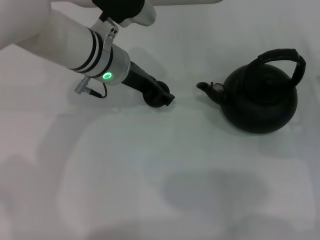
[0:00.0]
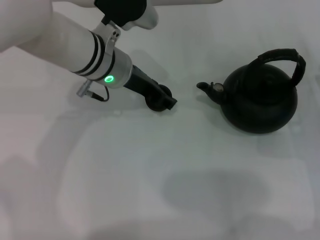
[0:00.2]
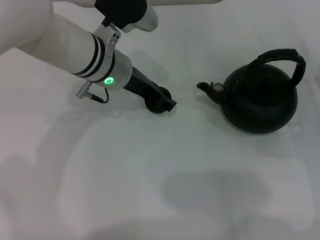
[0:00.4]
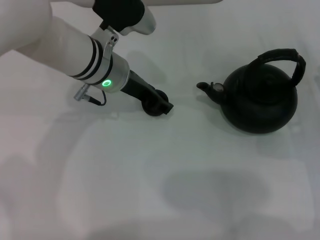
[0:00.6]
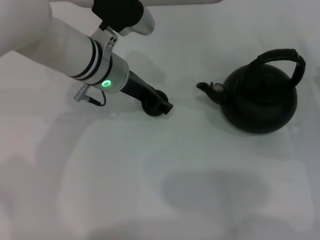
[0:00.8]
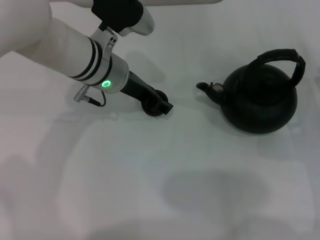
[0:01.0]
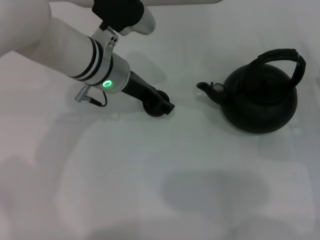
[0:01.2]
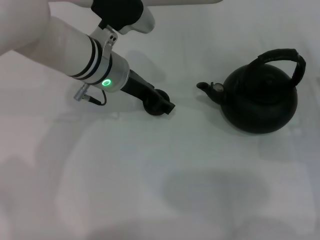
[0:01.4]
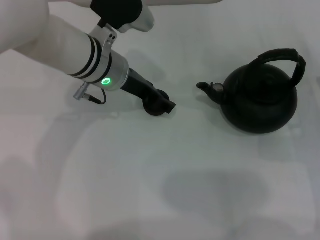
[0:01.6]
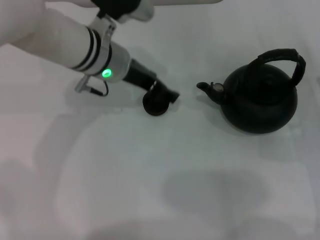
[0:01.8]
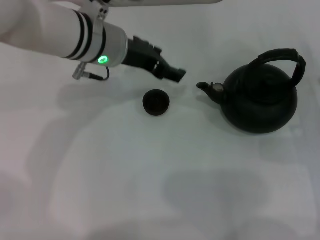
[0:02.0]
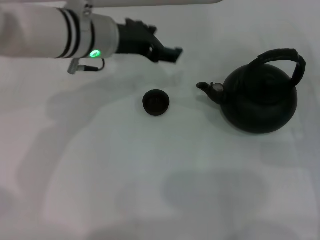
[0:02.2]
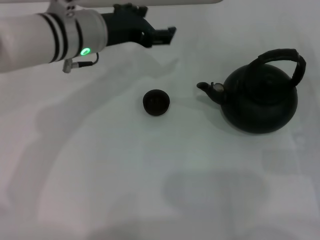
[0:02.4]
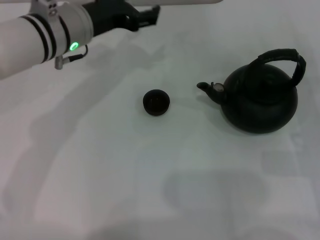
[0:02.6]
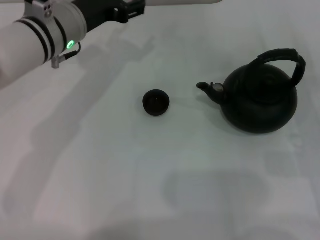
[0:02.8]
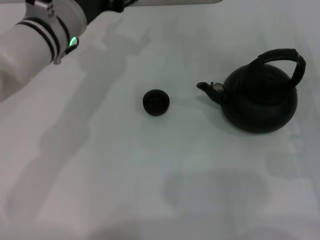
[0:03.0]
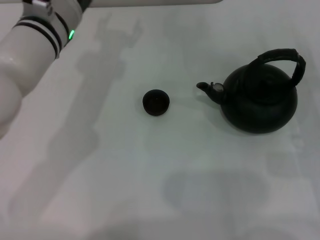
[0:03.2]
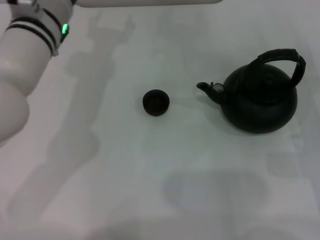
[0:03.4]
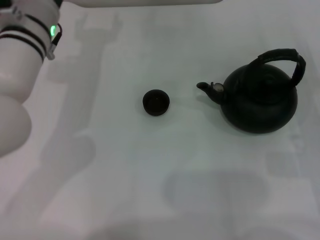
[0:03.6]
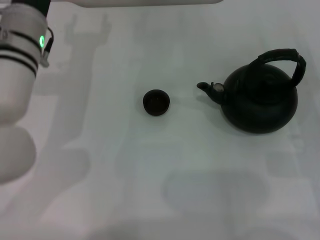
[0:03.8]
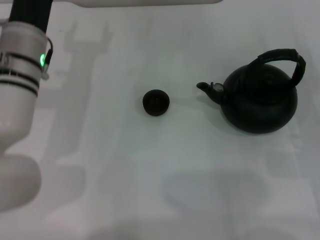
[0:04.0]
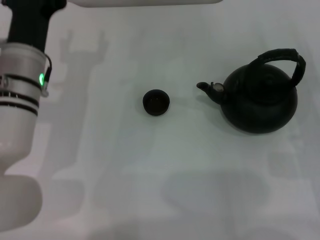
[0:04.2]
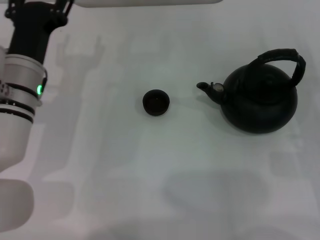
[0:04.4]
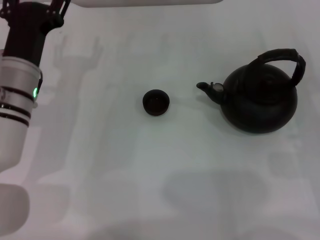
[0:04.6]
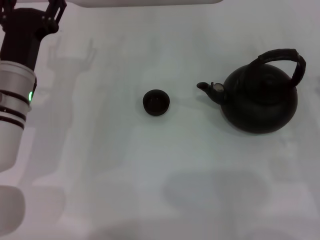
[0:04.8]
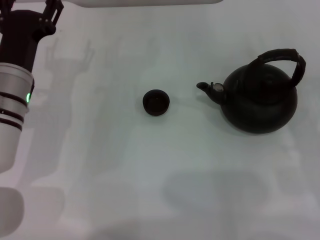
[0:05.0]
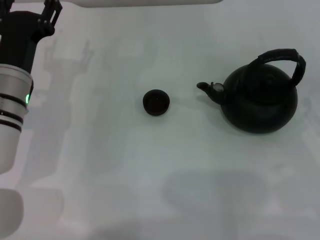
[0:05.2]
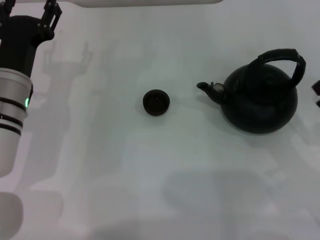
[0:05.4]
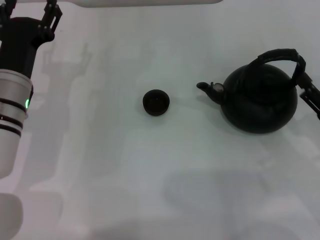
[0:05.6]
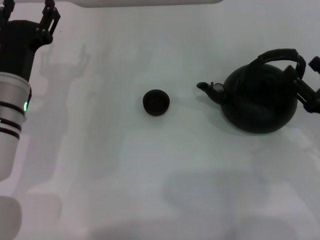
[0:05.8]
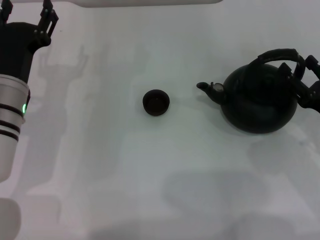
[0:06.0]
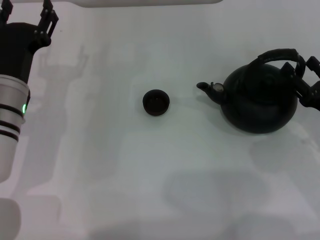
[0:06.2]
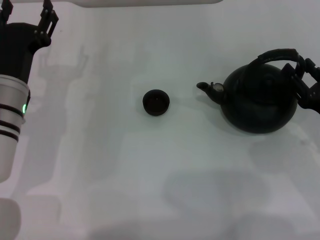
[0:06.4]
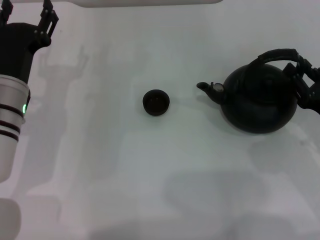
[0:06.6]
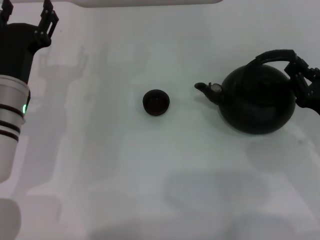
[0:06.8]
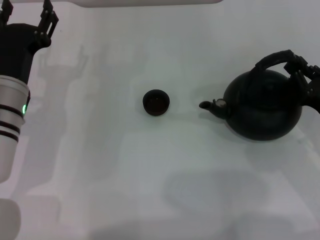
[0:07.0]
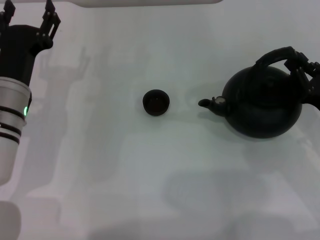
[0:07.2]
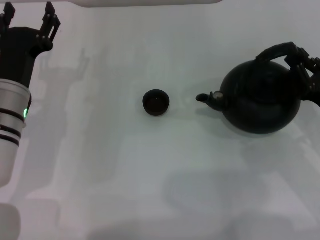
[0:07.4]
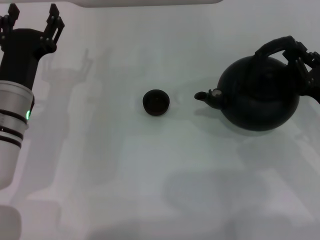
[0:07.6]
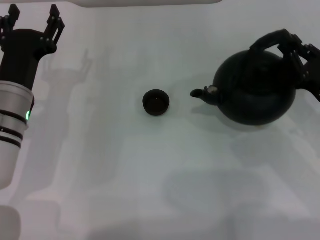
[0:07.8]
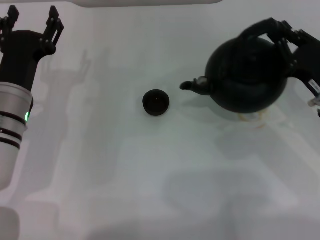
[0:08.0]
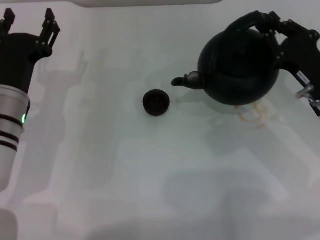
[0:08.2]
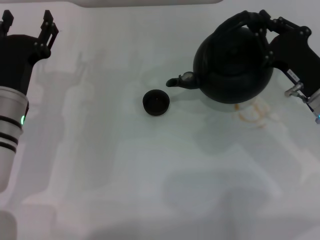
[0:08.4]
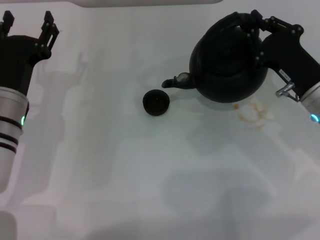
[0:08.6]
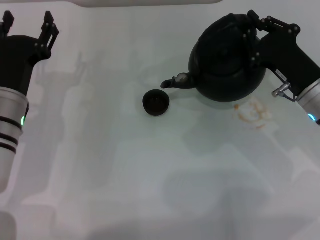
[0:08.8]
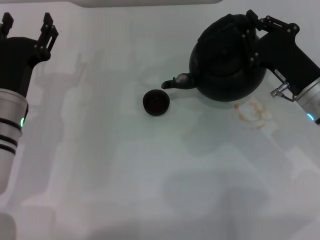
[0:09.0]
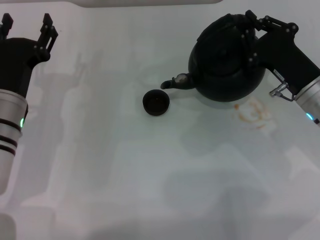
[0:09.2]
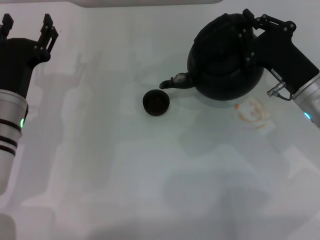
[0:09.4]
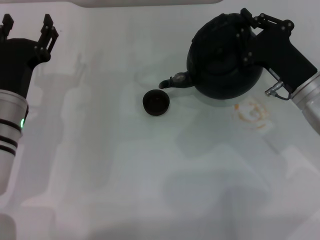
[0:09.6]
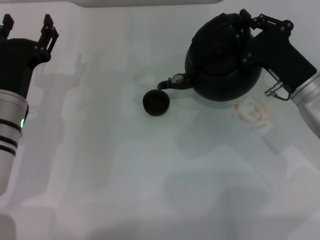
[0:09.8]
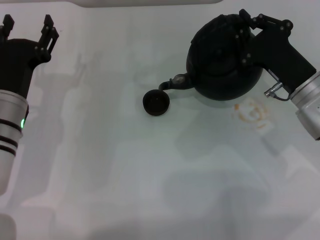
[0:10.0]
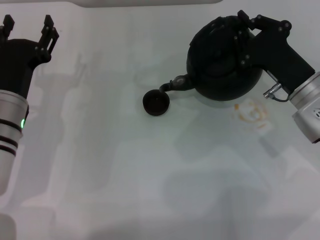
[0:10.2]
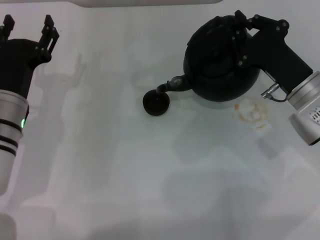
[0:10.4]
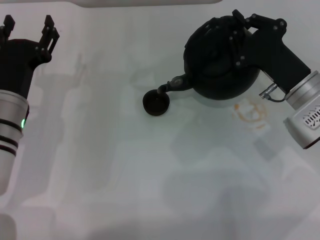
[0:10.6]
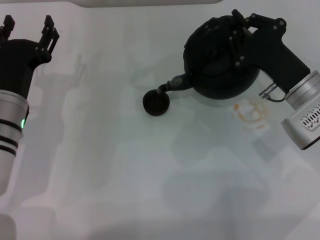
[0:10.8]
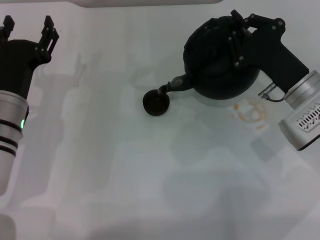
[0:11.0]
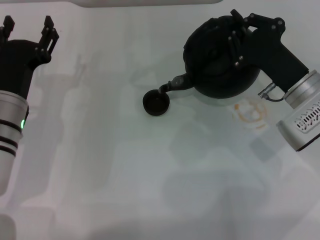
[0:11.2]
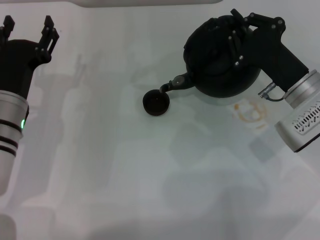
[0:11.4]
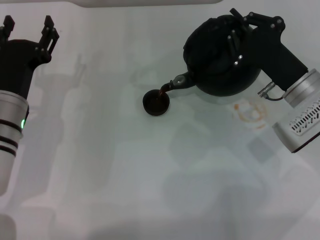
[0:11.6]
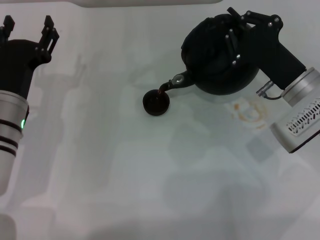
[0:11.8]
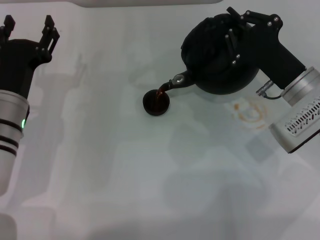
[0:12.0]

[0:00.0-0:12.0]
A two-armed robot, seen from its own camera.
Task of the whole recording: Grasp the handle of the teapot with one hand and pour tea into the teacup.
Step, 0:00.0 to 0:01.8: Place the teacup in the center of view with the left gripper.
Step, 0:02.0 to 0:07.2: Pick up the teapot with the right gripper.
0:00.0 to 0:01.6: The left gripper opens its fingers.
0:01.6 to 0:03.0: The left gripper changes place by roughly 5 cm.
0:03.0 to 0:04.4: The left gripper moves downward and backward, approximately 10 cm.
0:06.0 to 0:07.6: The right gripper closes up.
0:07.6 to 0:09.0: The right gripper heads to the left and forward, covering about 10 cm.
0:09.0 to 0:10.4: The grippers make only small movements.
0:10.4 to 0:12.0: The grippers move only a little.

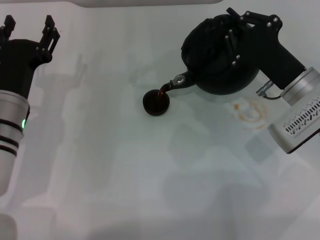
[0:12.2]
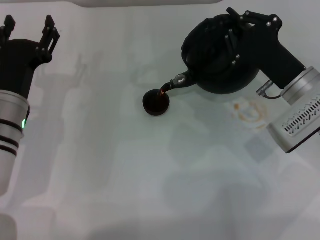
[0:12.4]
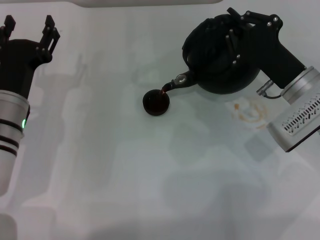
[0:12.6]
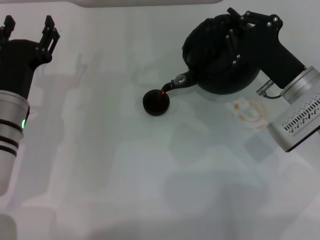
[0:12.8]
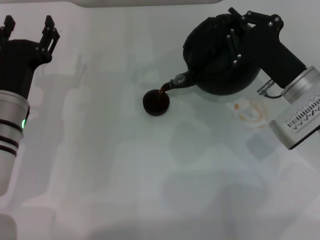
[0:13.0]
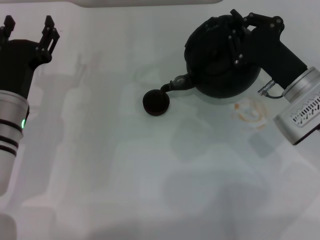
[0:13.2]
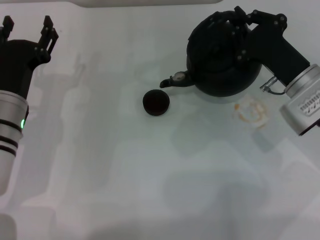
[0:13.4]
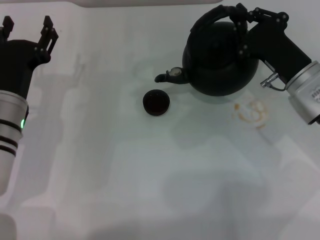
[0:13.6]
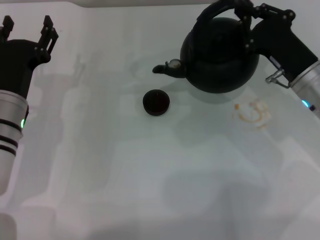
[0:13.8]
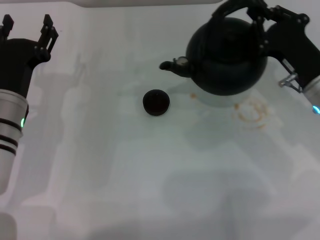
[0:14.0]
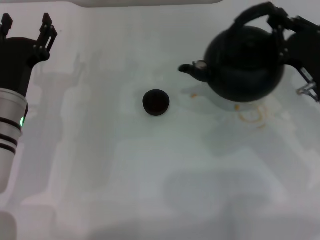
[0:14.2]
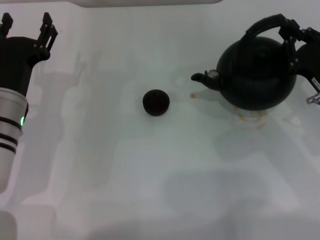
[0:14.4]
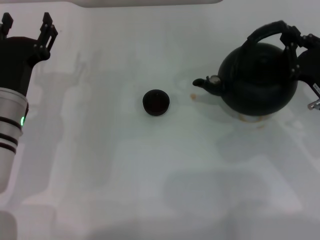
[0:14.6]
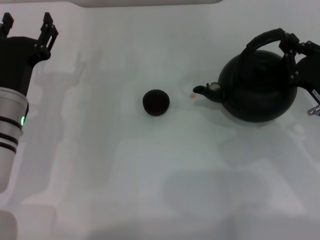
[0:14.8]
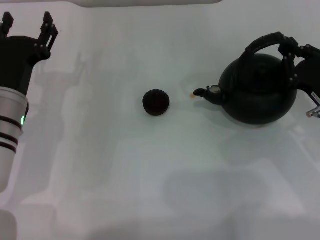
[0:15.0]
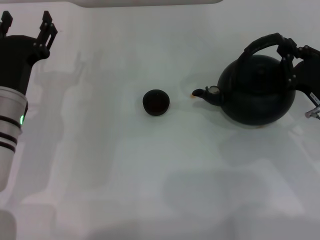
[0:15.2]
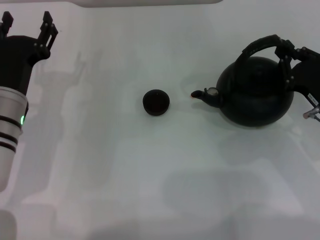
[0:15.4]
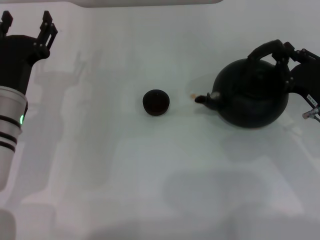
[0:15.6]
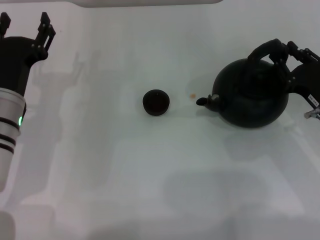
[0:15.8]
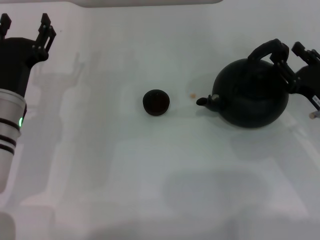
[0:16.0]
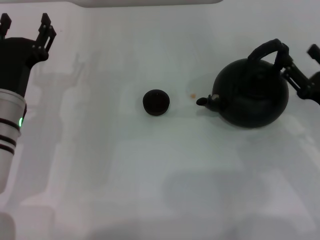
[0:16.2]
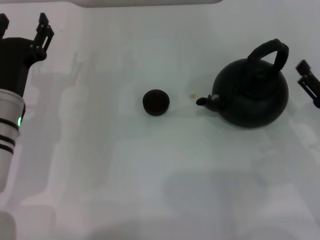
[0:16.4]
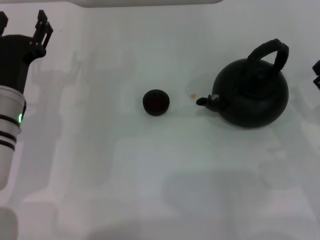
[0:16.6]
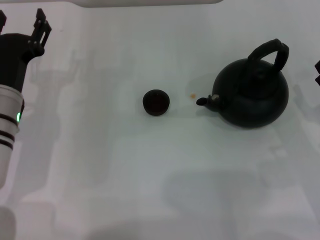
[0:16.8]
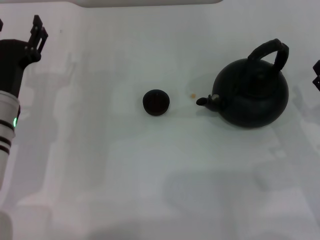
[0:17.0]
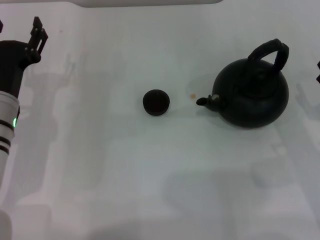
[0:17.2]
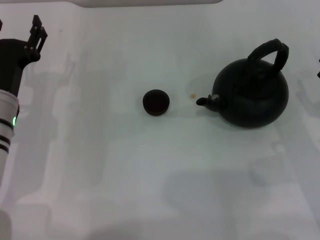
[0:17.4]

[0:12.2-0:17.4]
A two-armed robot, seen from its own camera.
Task of the whole recording: Grasp the handle of the teapot with one hand and pour tea into the teacup.
Step, 0:13.6 to 0:16.8: Put down the teapot with the right gripper.
0:14.0 to 0:15.6: The right gripper shifts by some 5 cm.
0:15.6 to 0:17.4: The right gripper shifts by about 5 cm, and opens up.
